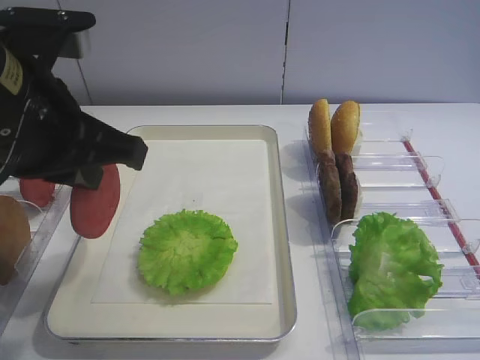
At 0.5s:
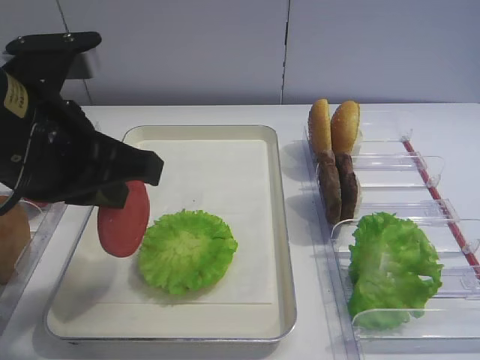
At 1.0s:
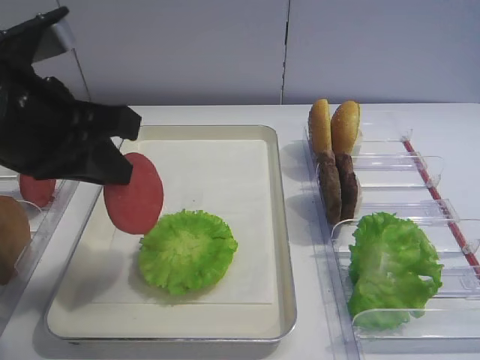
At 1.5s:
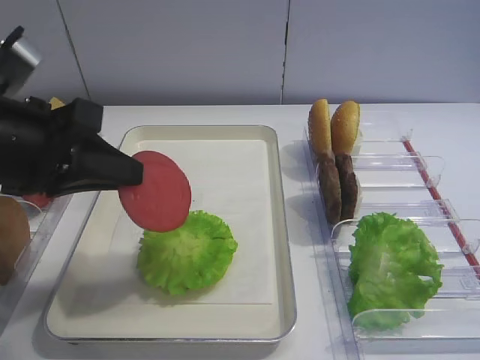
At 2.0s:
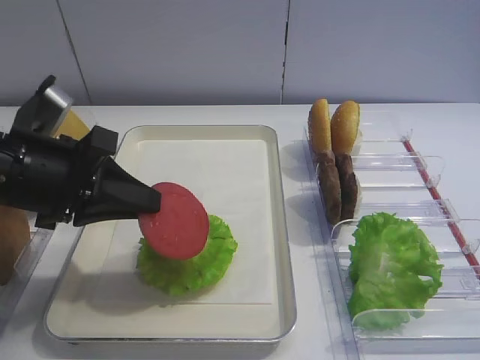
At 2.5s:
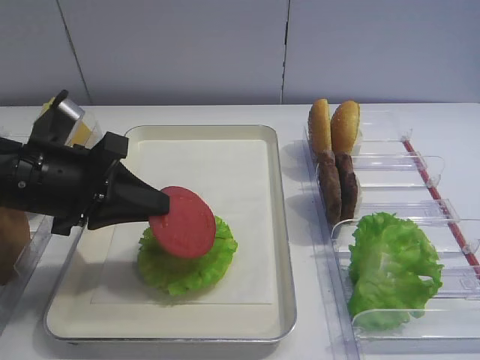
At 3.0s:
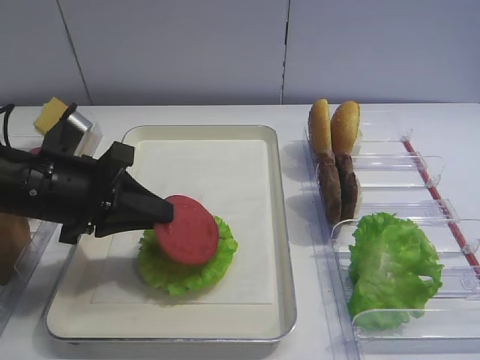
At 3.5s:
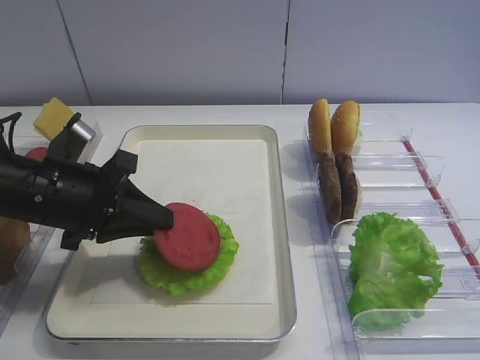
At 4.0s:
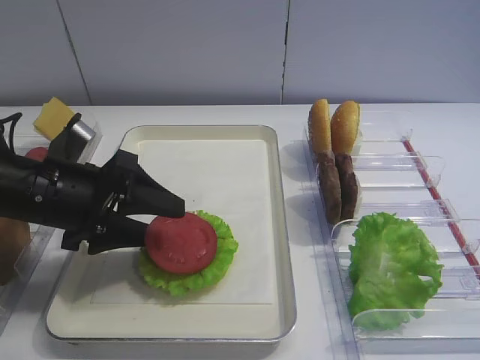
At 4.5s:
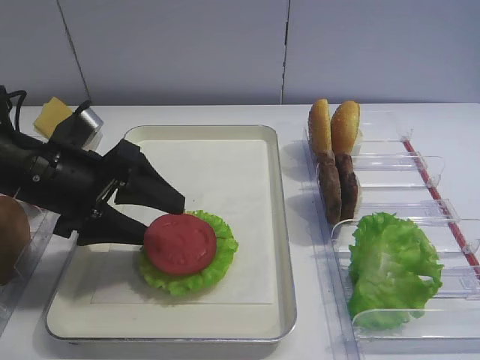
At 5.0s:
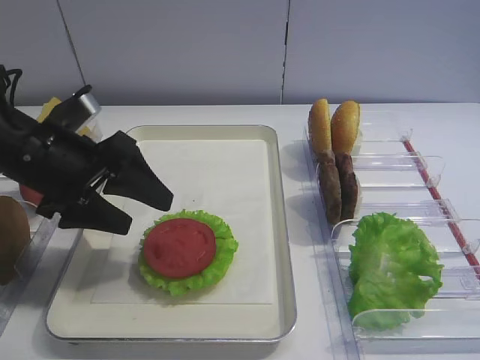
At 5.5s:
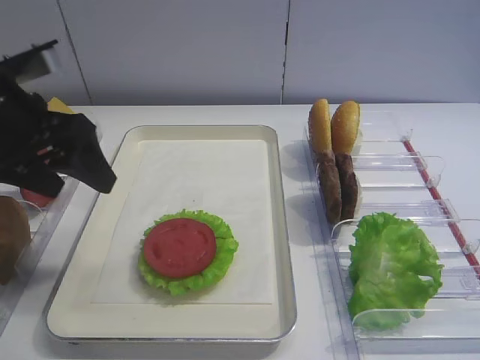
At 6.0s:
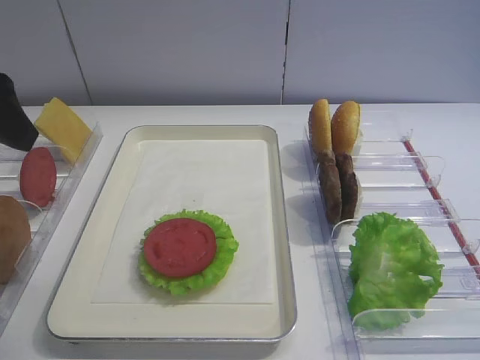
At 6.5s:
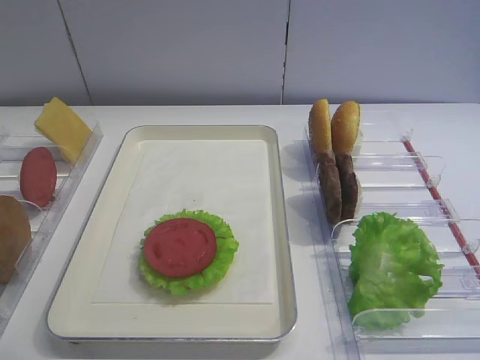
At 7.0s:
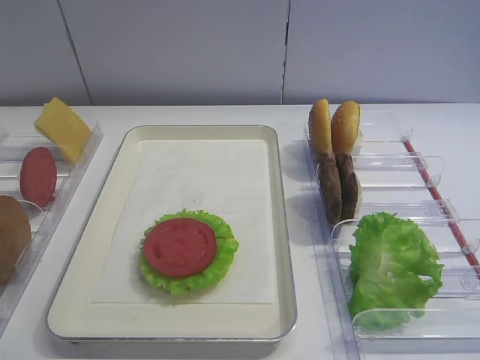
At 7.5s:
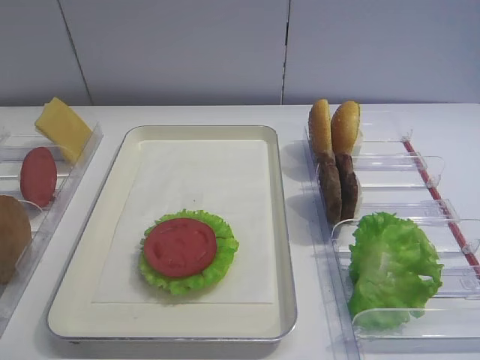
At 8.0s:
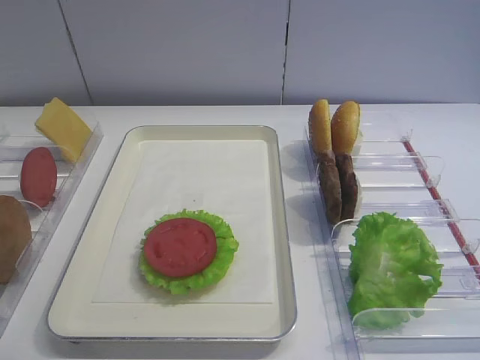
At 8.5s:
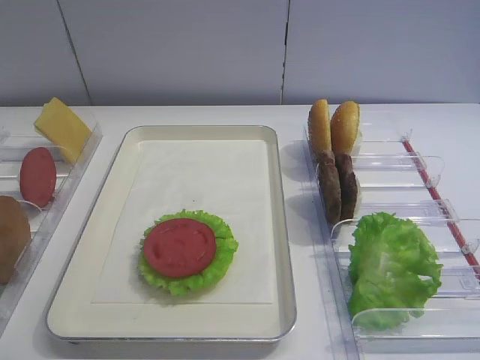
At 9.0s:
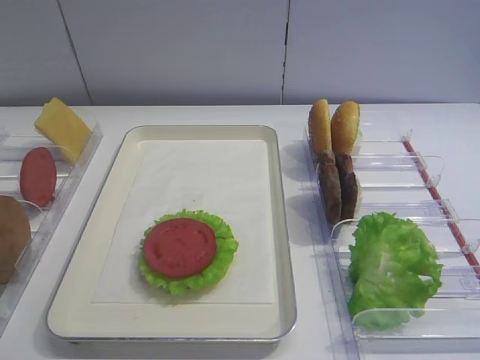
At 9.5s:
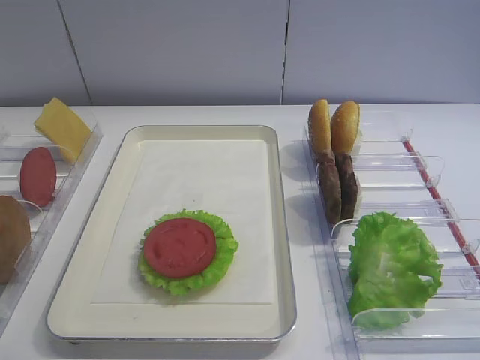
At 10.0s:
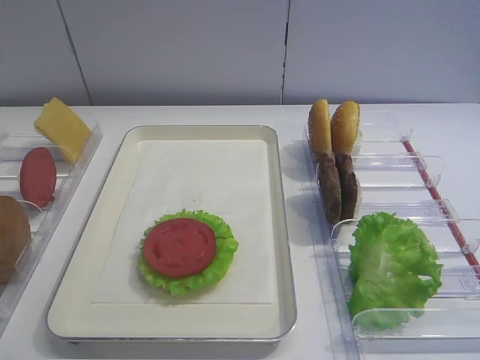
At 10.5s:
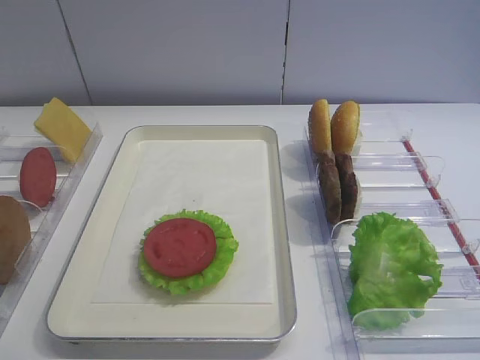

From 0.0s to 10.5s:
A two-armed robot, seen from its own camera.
Step, from 0.0s to 4.5s: Place the tomato slice on the lettuce leaf with the left gripper.
From 0.0s to 2.0s: The left gripper heads downward, covering some 10 cm.
From 2.0s to 4.0s: The left gripper shifts by about 5 cm, and opens its fingers.
From 4.0s to 6.5s: The left gripper is displaced upward and backward by some 25 cm.
From 8.5s to 10.5s: Both grippers stay put.

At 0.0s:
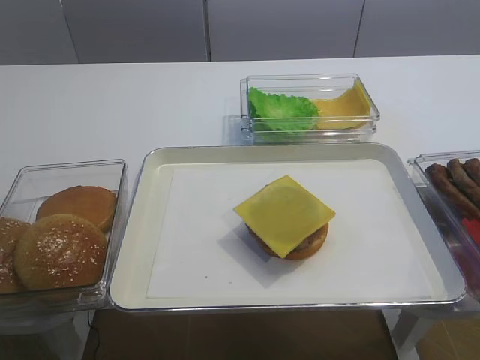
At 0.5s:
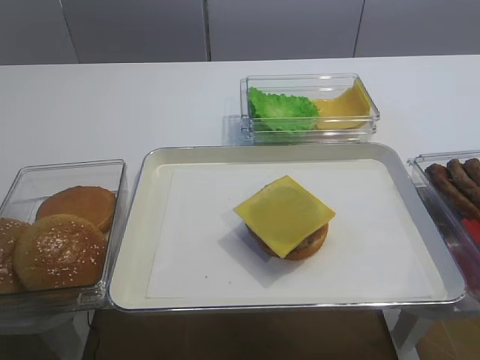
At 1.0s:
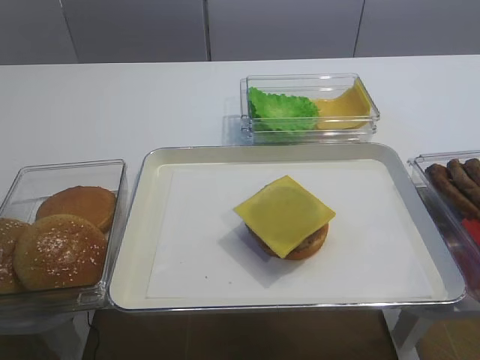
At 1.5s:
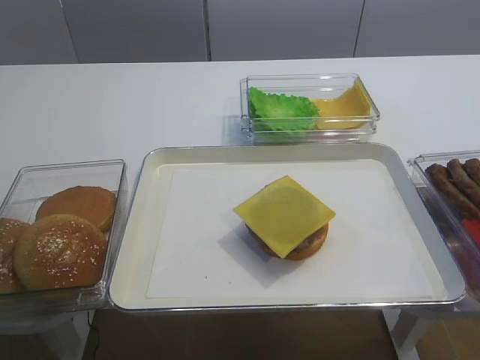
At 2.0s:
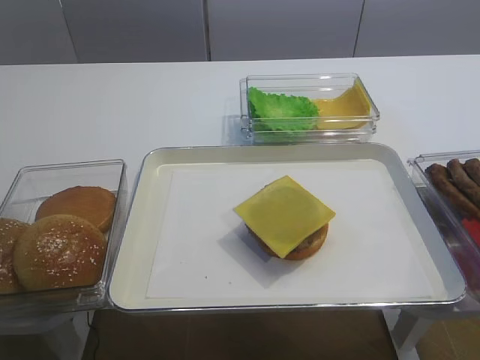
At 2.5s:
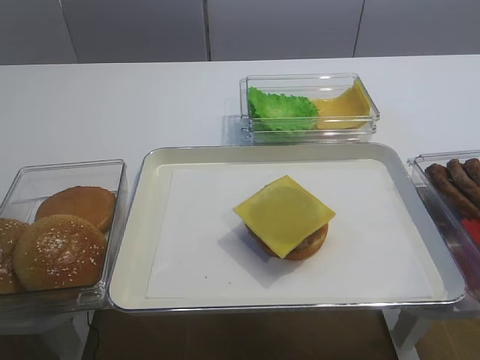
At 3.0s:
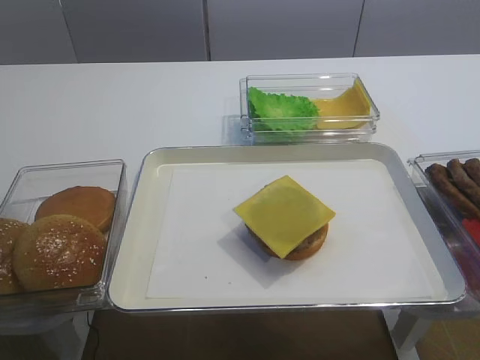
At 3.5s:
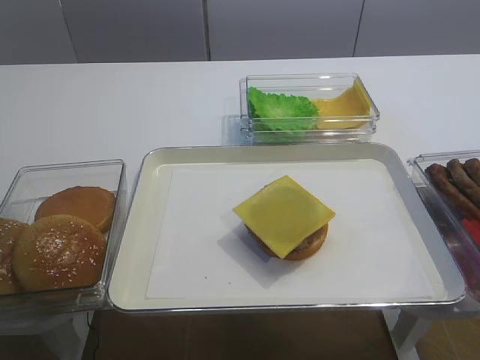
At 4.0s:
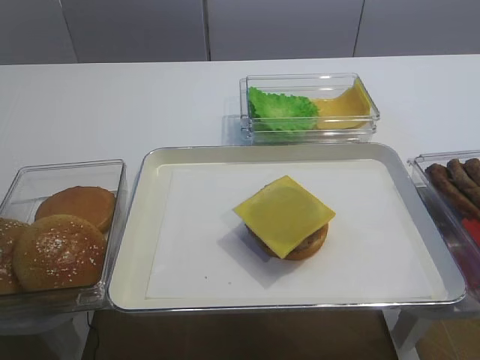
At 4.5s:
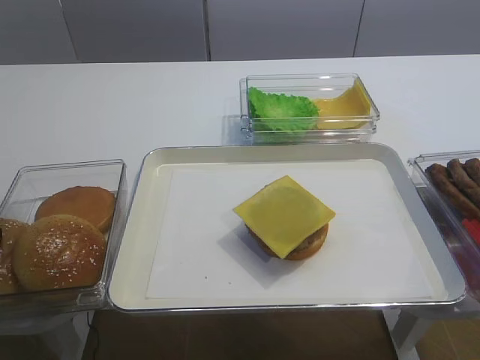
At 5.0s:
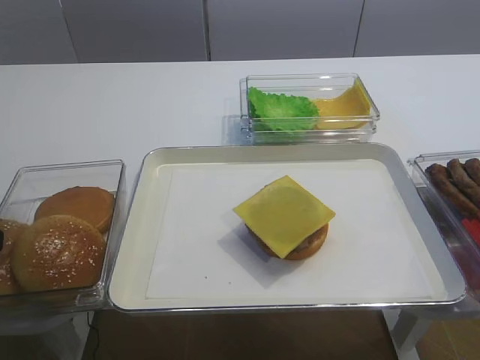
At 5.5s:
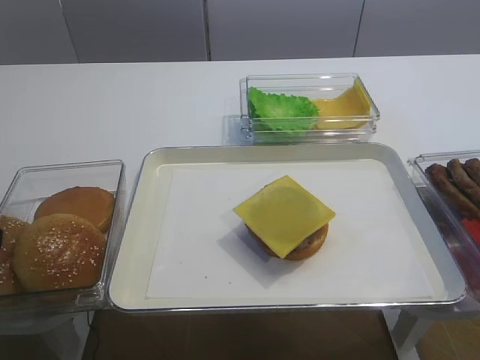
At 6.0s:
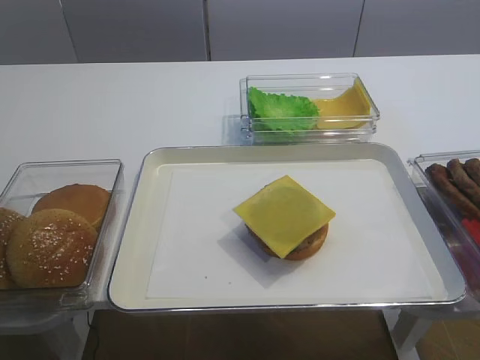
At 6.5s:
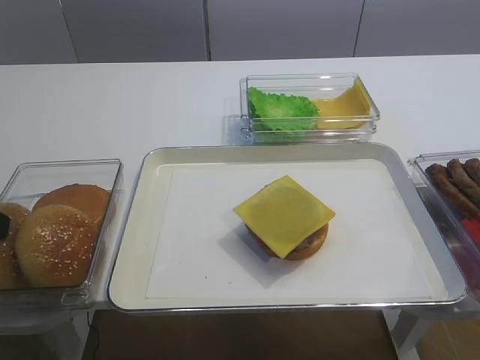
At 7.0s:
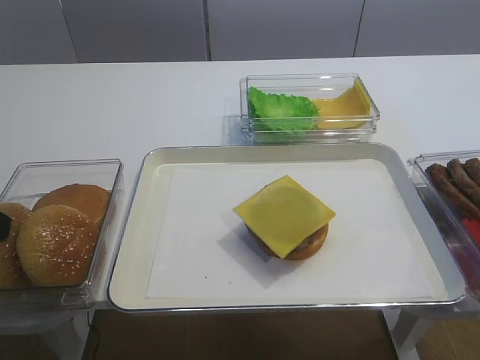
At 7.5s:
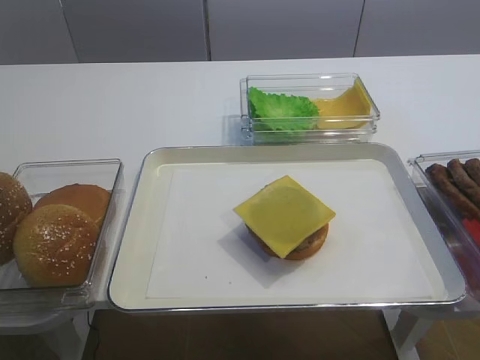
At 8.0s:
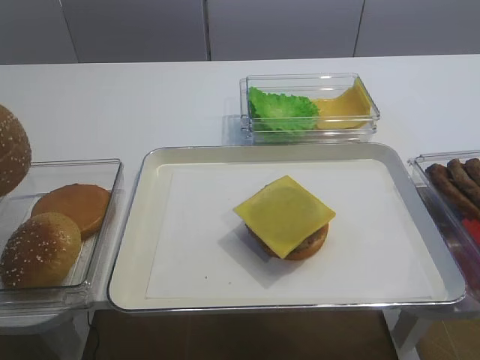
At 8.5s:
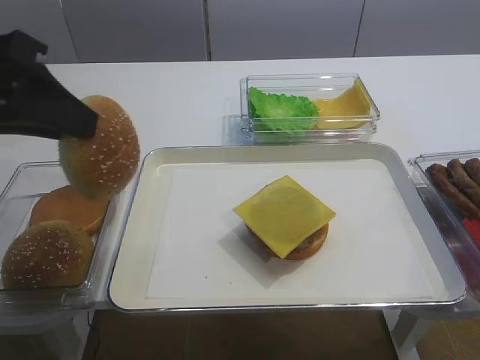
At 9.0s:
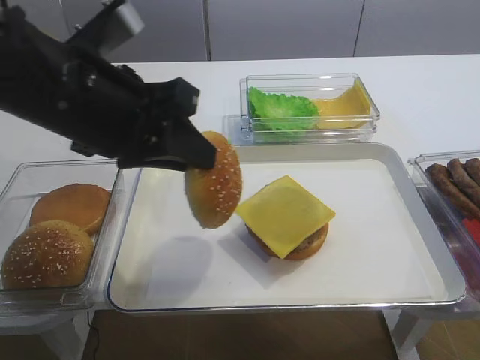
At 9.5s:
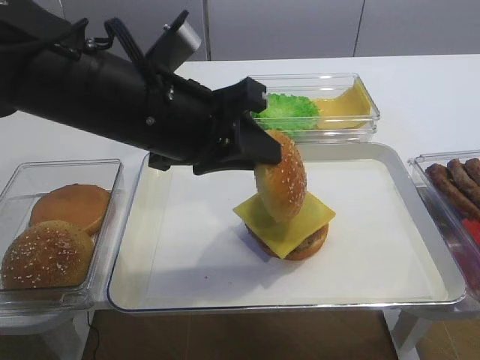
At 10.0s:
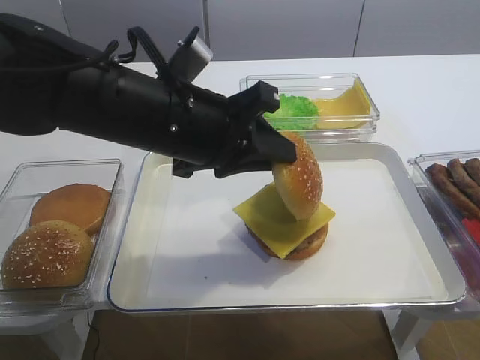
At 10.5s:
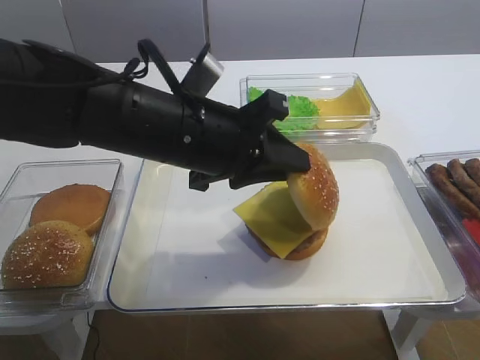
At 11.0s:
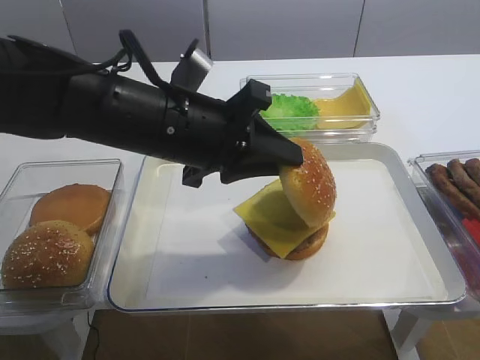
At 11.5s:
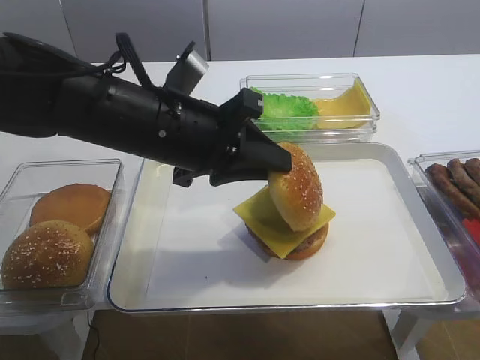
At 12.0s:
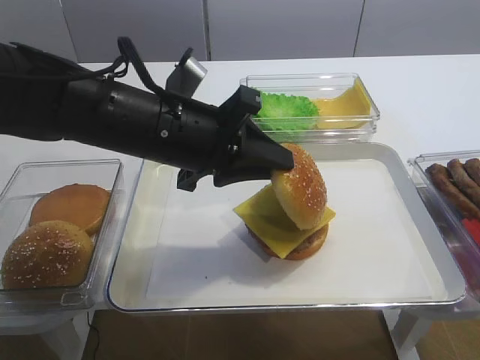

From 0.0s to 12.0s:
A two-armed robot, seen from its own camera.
Step, from 0.0s to 7.5s: Pick up the hamburger lid with the left gripper.
From 4.0s to 6.0s: The left gripper closes up.
From 6.0s to 8.0s: The left gripper shifts some 10 cm upward.
From 8.0s to 10.0s: The left gripper travels to the right by about 25 cm.
From 10.0s to 12.0s: There are only small adjustments of the grippers.

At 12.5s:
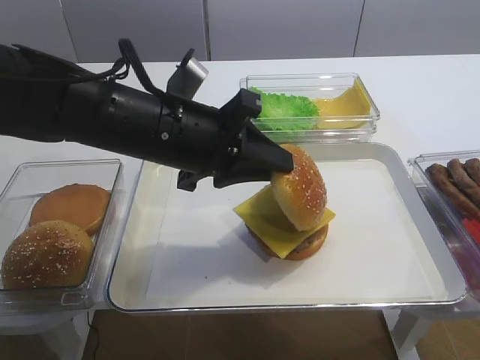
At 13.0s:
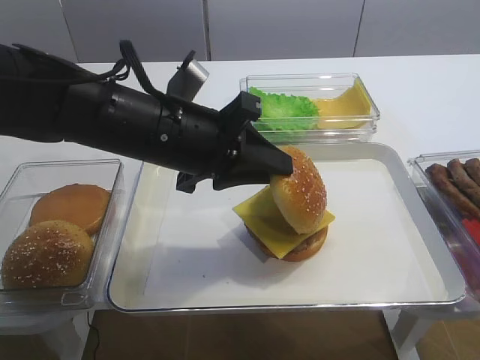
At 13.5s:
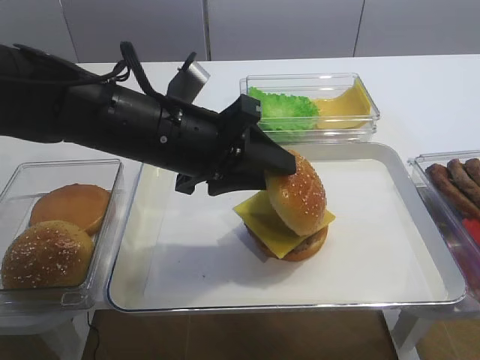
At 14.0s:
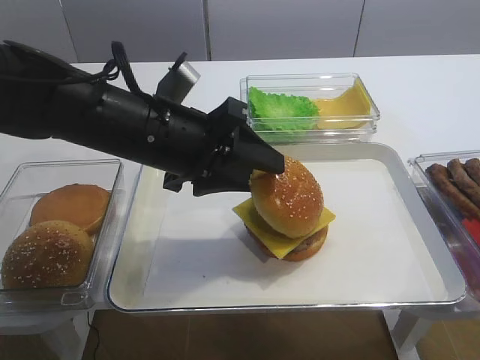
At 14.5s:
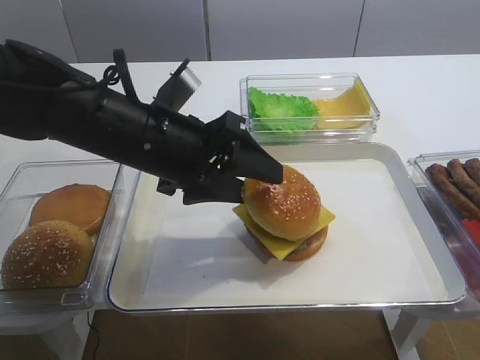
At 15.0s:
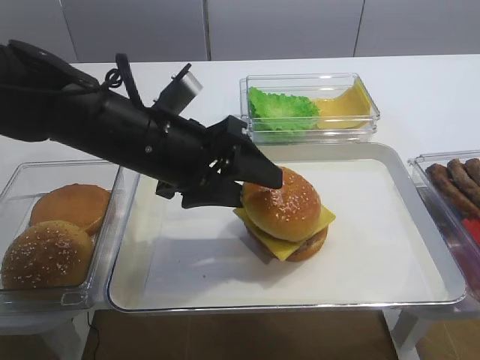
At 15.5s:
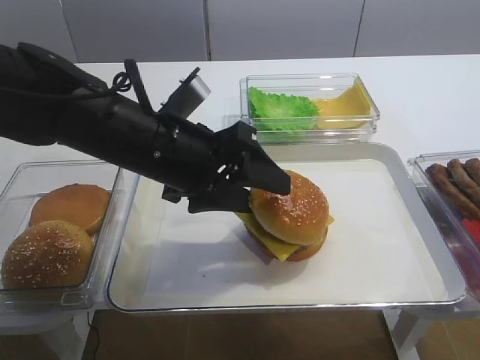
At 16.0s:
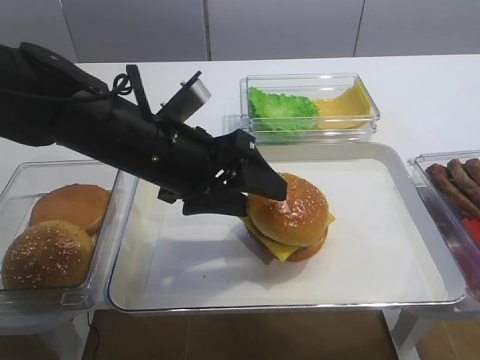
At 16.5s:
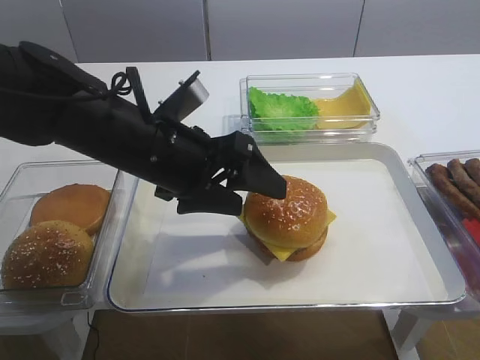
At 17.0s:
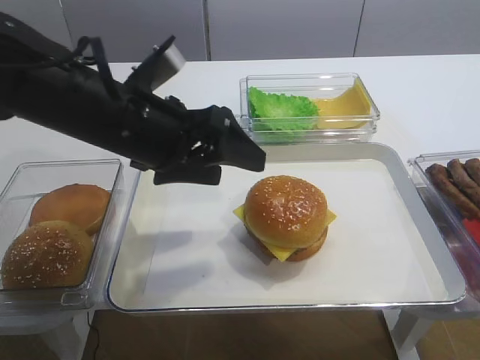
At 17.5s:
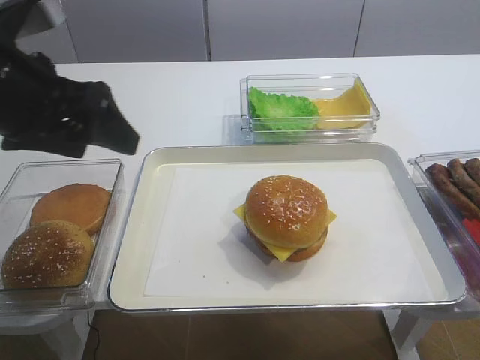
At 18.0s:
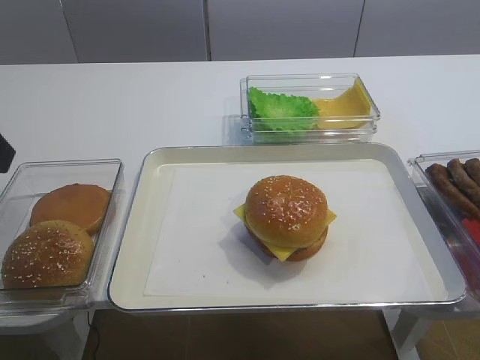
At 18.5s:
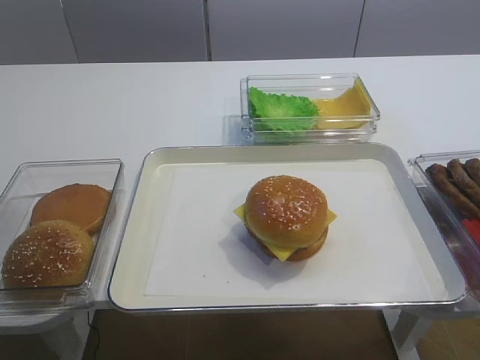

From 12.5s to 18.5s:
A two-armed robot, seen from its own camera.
Step, from 12.5s to 16.5s: Place the hamburger lid on the cheese slice with the left gripper.
From 12.5s to 14.5s: The left gripper opens.
From 14.5s to 16.5s: The grippers make only small movements.
From 16.5s to 18.5s: The left gripper heads backward, to the left and upward, covering roughly 30 cm.
